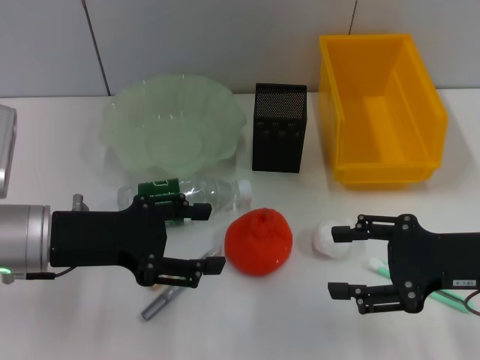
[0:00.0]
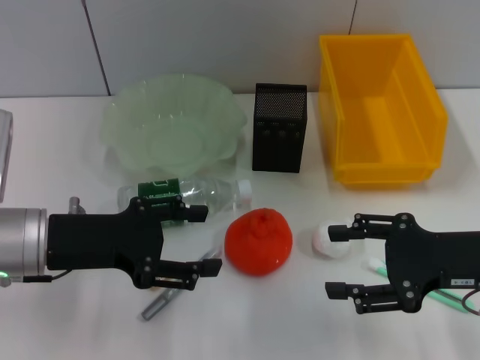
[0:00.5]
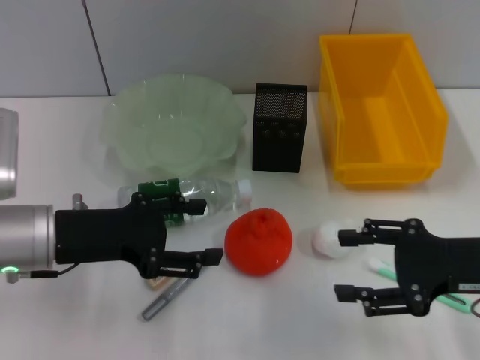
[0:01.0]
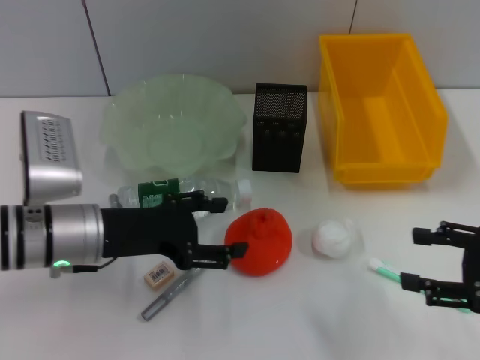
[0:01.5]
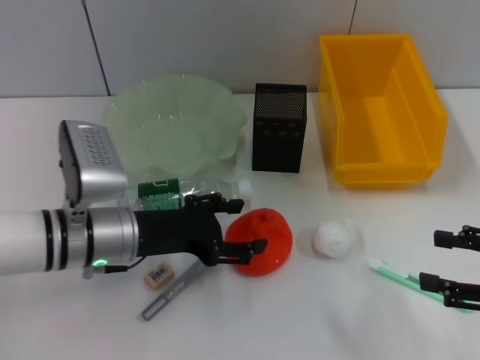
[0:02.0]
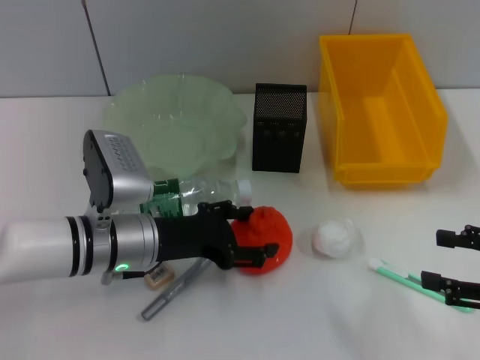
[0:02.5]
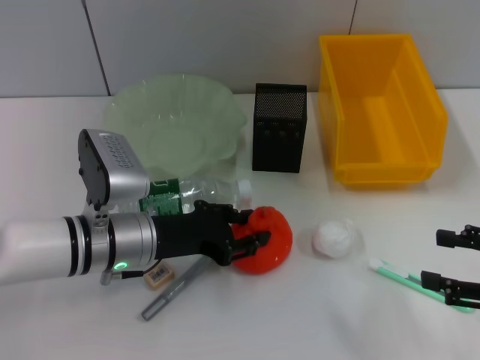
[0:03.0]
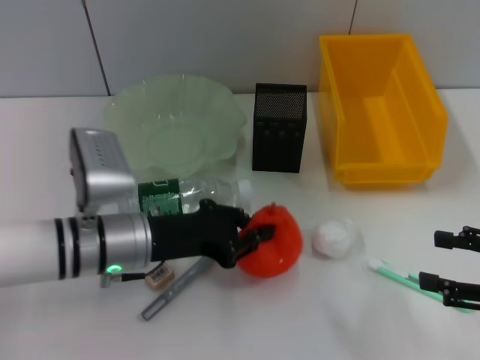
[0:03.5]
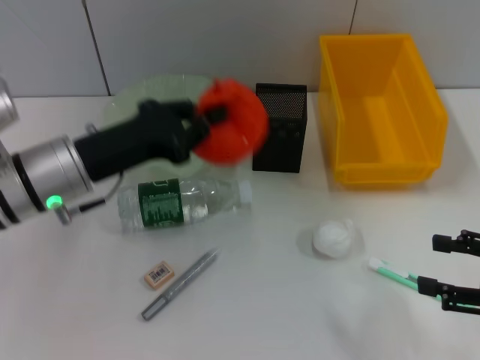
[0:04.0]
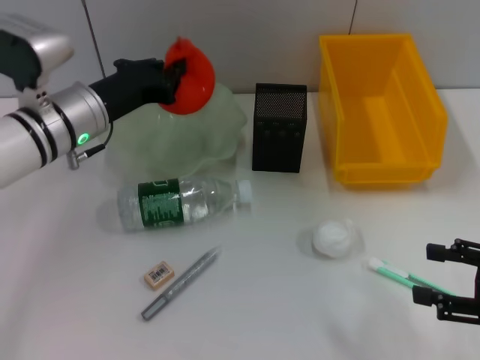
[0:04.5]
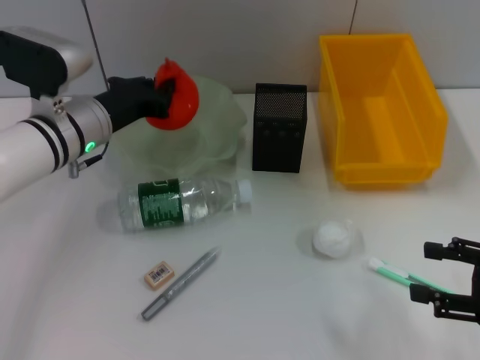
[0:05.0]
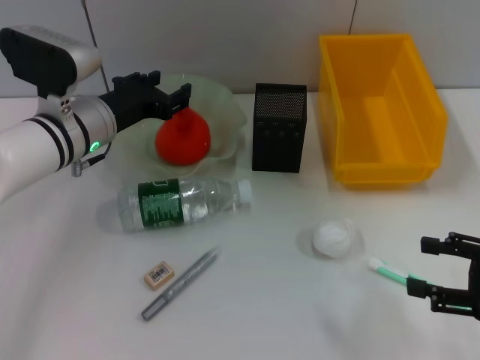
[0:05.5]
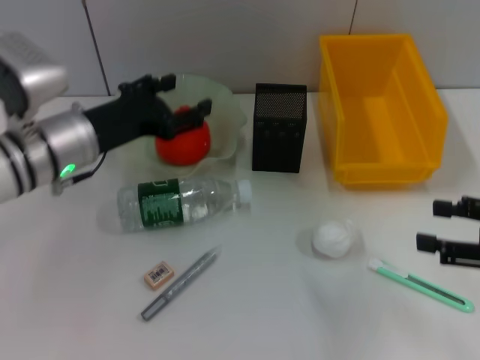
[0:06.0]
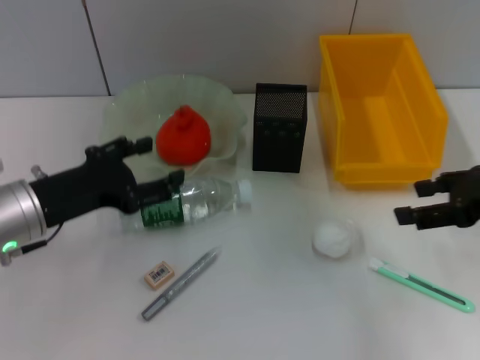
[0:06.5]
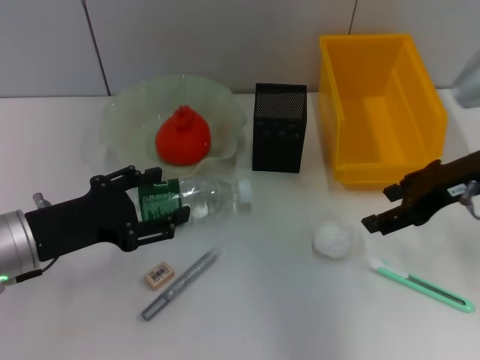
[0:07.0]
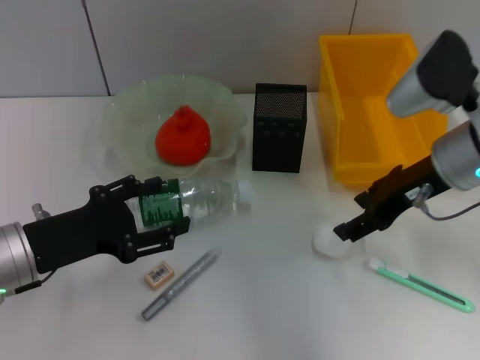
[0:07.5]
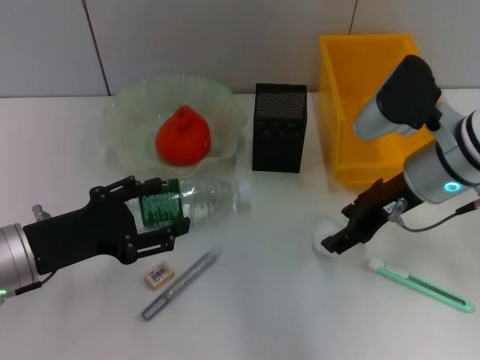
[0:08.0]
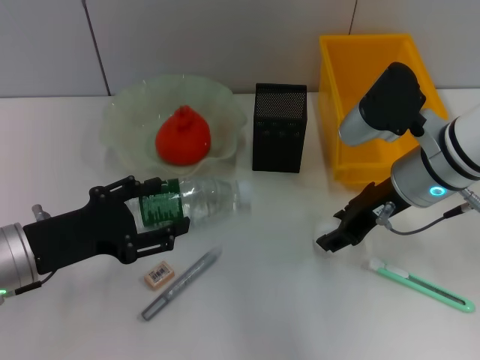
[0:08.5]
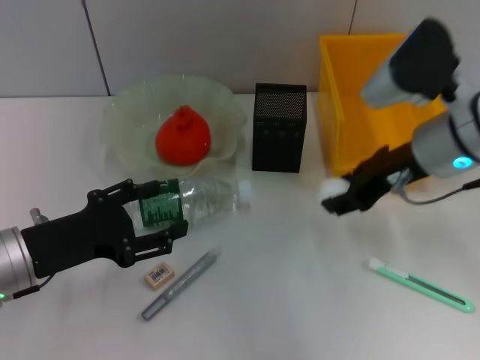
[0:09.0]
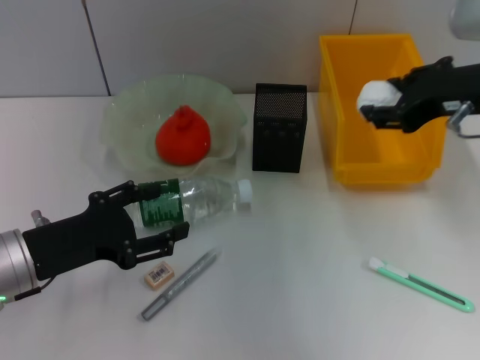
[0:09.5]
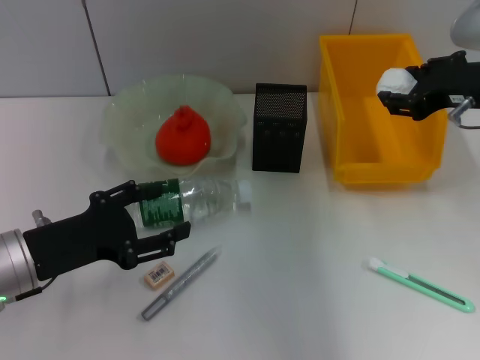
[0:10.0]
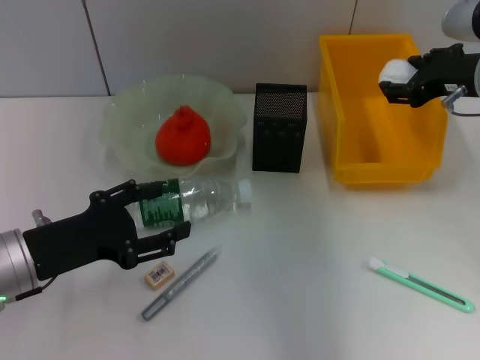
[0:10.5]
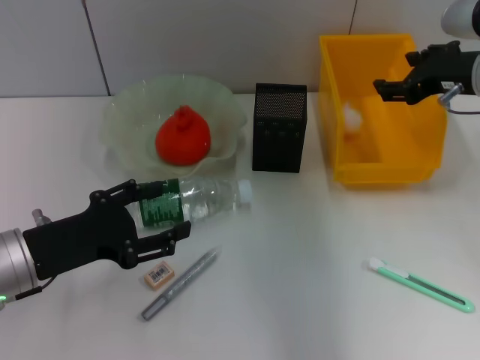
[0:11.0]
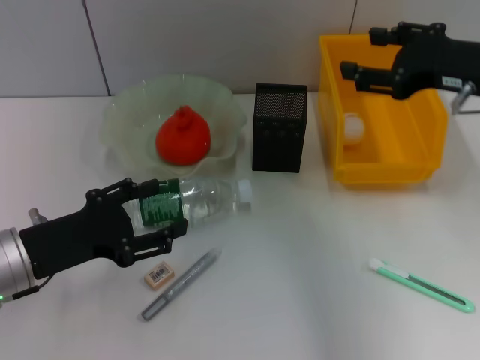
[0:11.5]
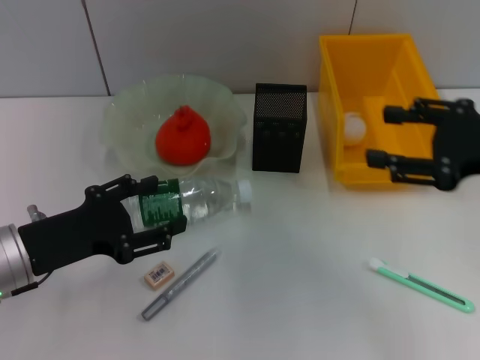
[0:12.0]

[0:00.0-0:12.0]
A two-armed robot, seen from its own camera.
Step, 0:00.0 to 0:03.0: Grab the orange with the left hand.
Step, 0:03.5 to 0:05.0: Place the orange into the fruit bowl with the left hand.
Step, 0:05.5 to 0:08.0: Grab the paper ball with the right hand.
Step, 0:08.5 to 0:10.5: Place the paper ball into the trash can with the right hand.
0:00.0 to 0:02.0: The right gripper heads to the right, covering about 10 cm; the left gripper goes approximately 10 cm to the right and downward.
0:02.0 to 0:04.0: The left gripper shifts about 5 cm upward, and closes its fingers.
0:04.0 to 0:06.0: The left gripper opens up.
0:06.0 to 0:08.0: The left gripper is displaced backward by some 10 cm; the right gripper heads to the left and forward, covering approximately 20 cm.
0:08.0 to 0:10.0: The right gripper moves upward and to the right, some 10 cm.
0:10.0 to 0:12.0: The right gripper moves backward, some 10 cm.

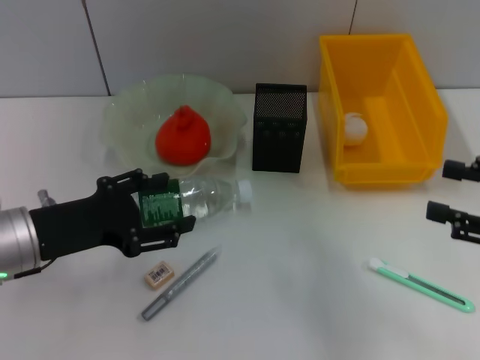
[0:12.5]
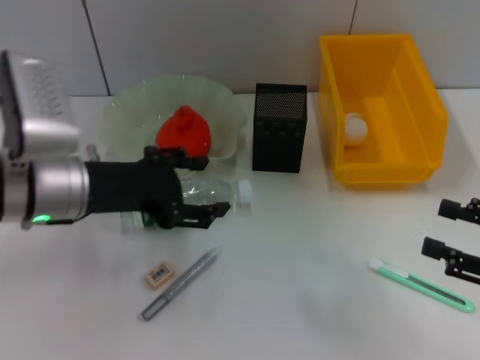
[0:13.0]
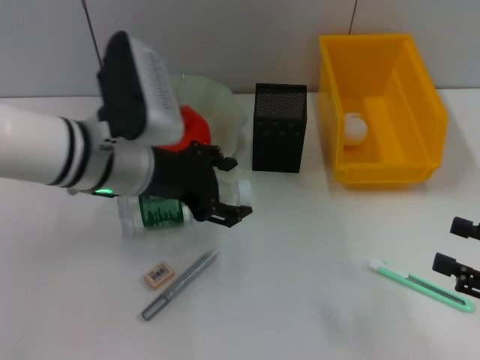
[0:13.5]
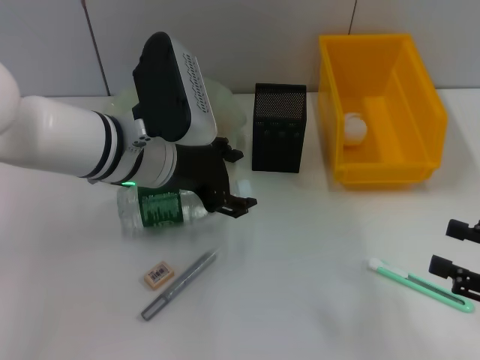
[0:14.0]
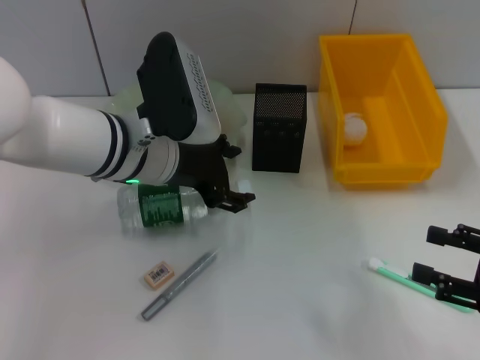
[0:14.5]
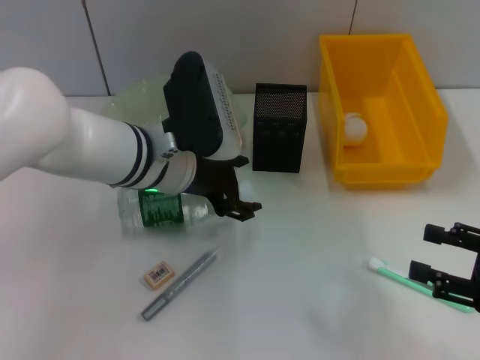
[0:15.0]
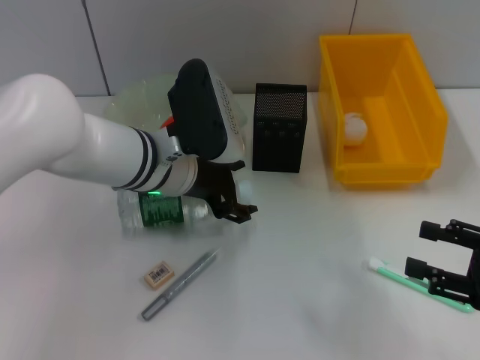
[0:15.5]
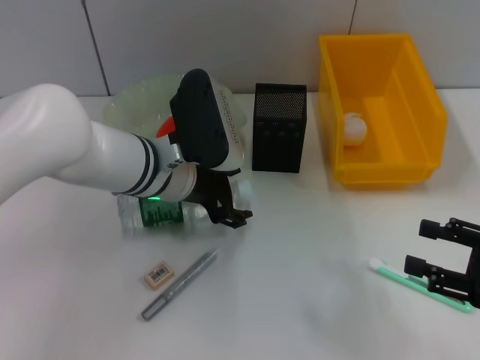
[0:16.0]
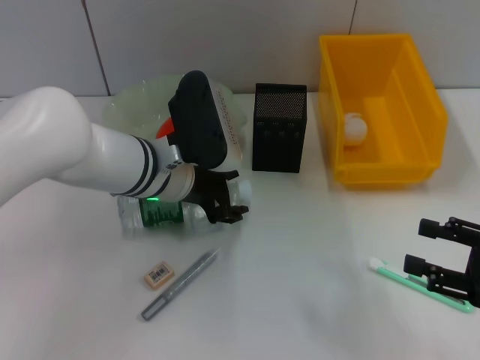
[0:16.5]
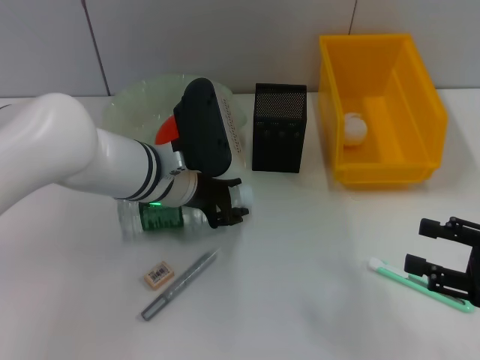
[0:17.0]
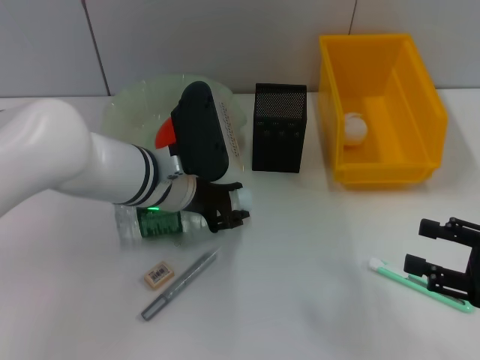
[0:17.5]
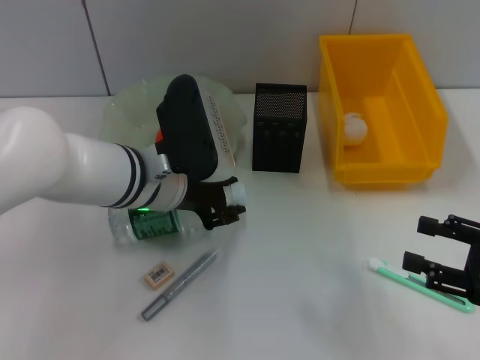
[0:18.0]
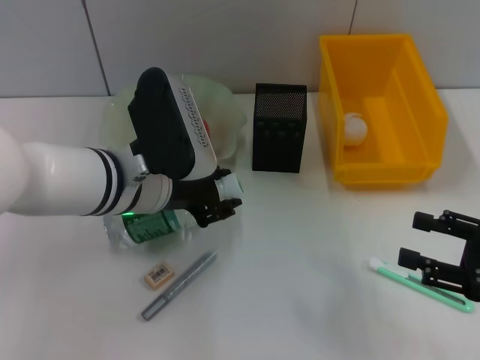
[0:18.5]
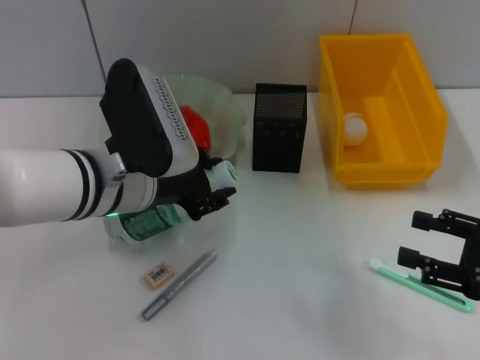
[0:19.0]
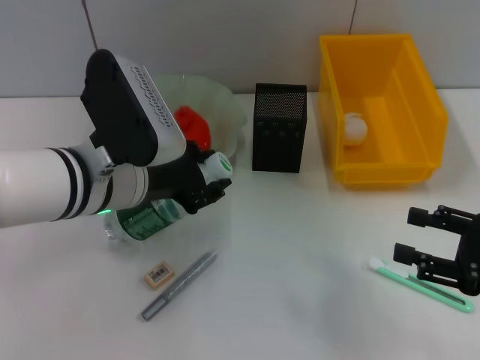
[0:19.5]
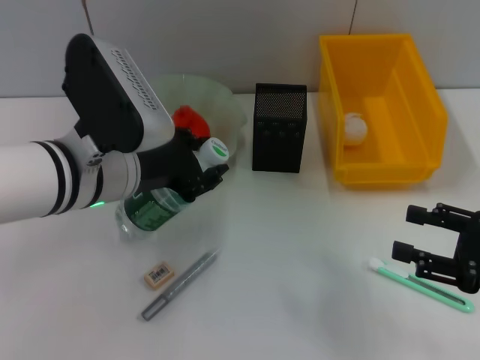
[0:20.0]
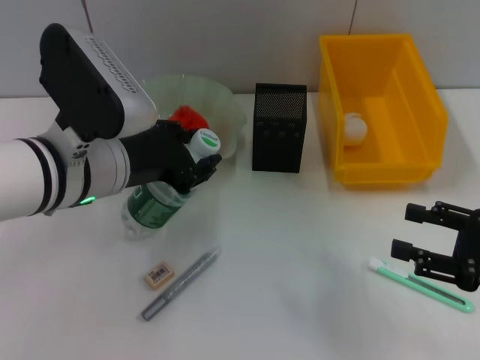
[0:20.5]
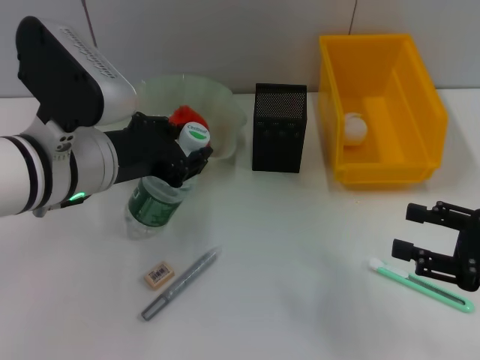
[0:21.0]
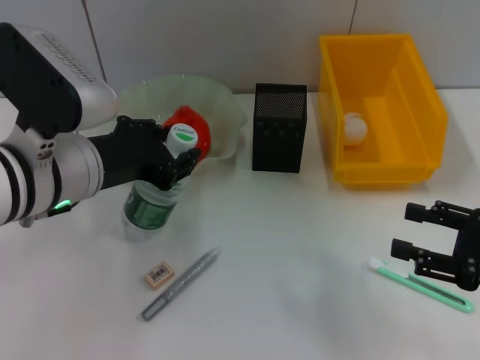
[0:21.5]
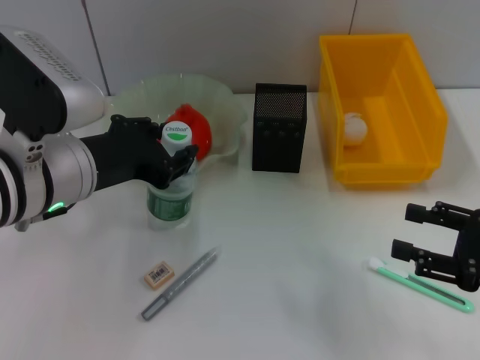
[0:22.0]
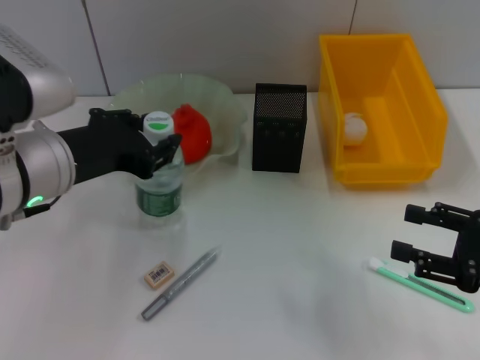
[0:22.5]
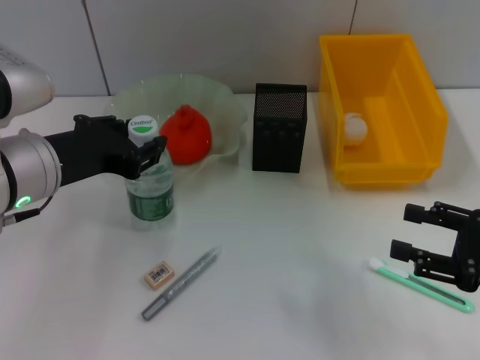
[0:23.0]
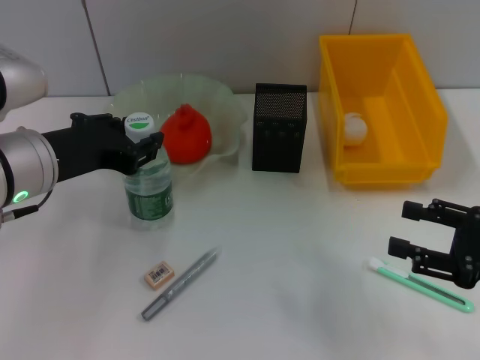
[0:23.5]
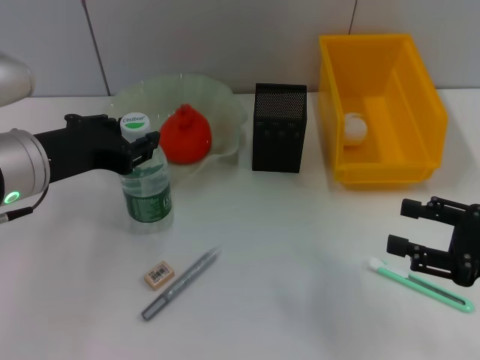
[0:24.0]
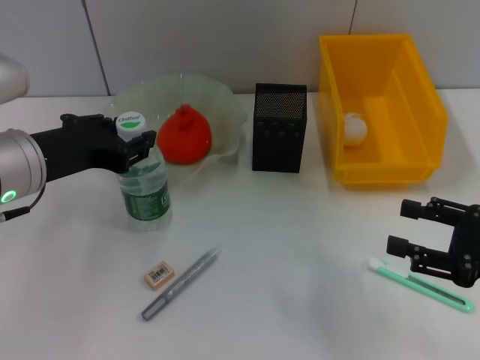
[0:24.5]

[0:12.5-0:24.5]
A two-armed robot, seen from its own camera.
Step, 0:12.5 to 0:16.5: Grab the water bottle with the left hand.
0:12.5 to 0:14.5: The right gripper heads downward, covering roughly 5 cm, while the left gripper heads to the right and forward, covering about 15 cm.
0:14.5 to 0:16.5: The grippers stay close to where they were, moving slightly.
0:16.5 to 0:18.5: The left gripper ends up some 5 cm from where it was, and closes.
0:18.5 to 0:20.5: The left gripper moves about 5 cm.
0:20.5 to 0:22.5: There are only small adjustments of the grippers.
0:22.5 to 0:24.5: The grippers move only a little.

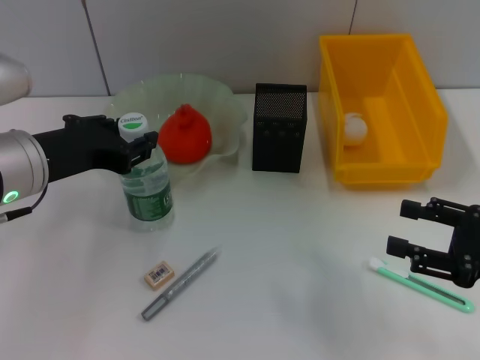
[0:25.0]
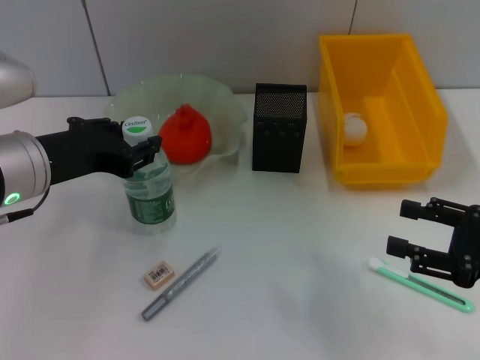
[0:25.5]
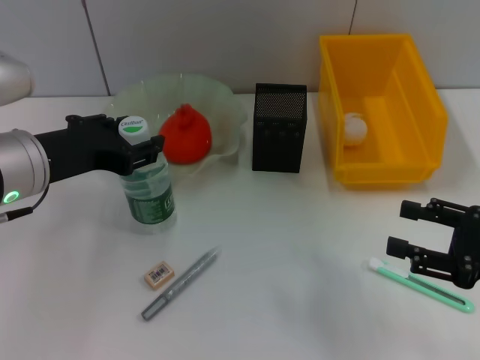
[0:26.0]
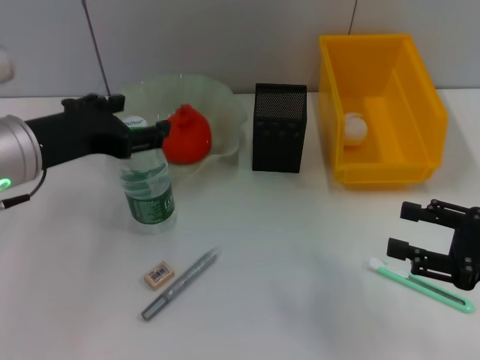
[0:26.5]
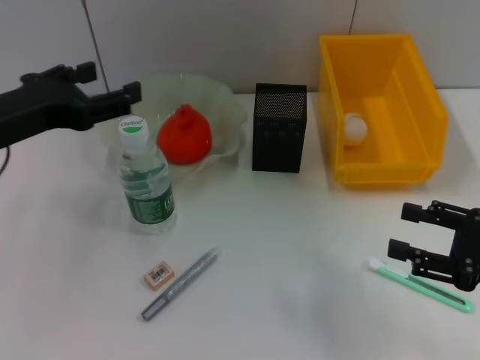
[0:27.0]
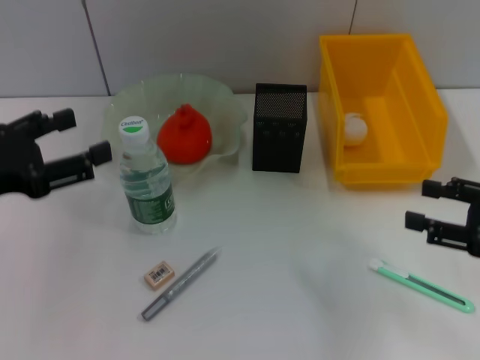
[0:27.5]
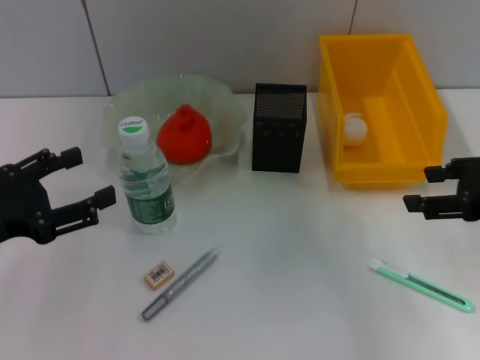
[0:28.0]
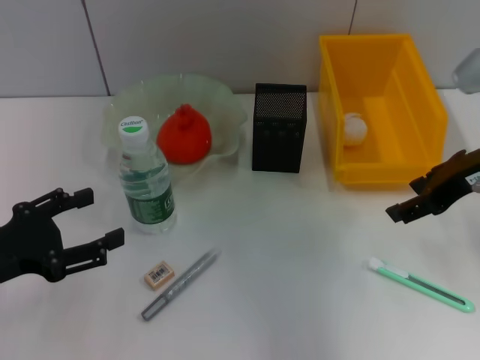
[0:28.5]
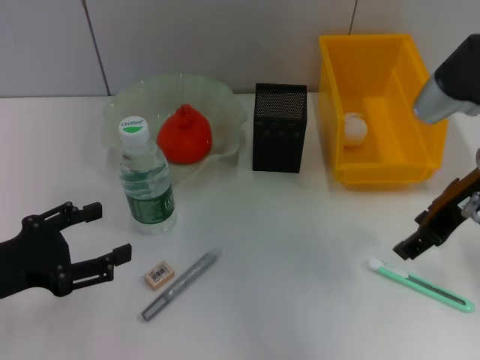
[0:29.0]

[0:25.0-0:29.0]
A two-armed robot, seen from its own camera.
0:25.0 to 0:27.0: The left gripper opens its fingers.
0:27.0 to 0:29.0: The right gripper goes roughly 15 cm forward, upward and to the left. Meanwhile the left gripper shifts approximately 15 cm downward, backward and to the left.
